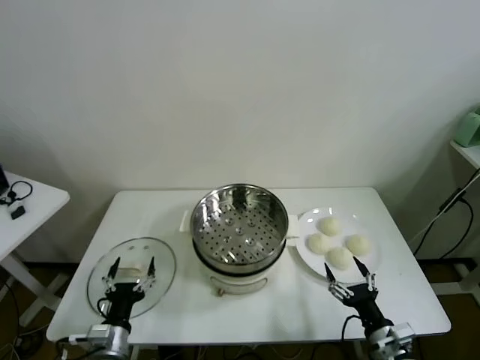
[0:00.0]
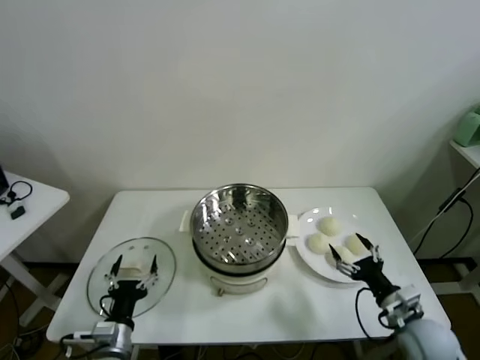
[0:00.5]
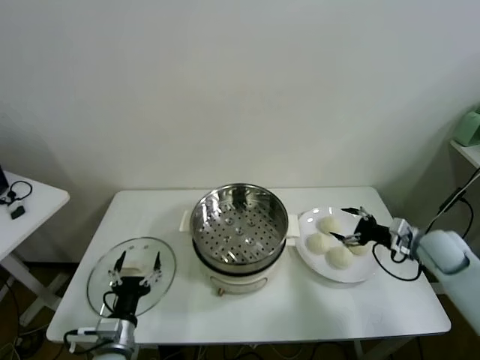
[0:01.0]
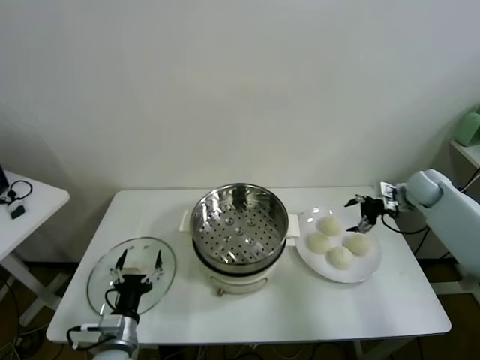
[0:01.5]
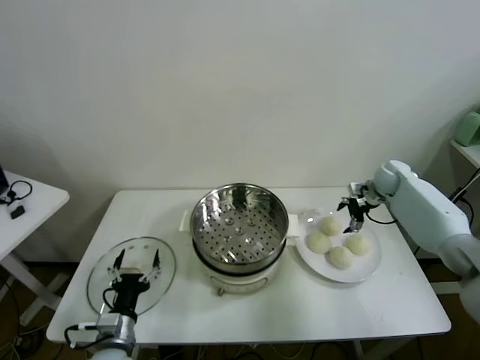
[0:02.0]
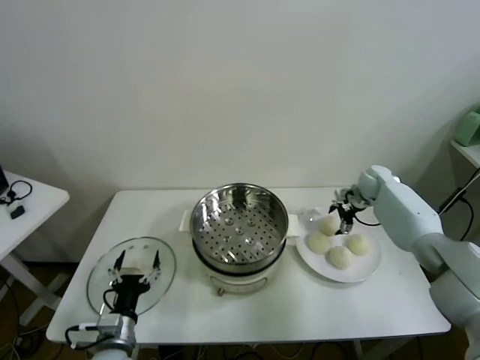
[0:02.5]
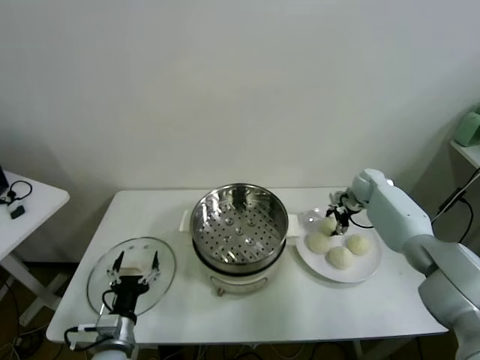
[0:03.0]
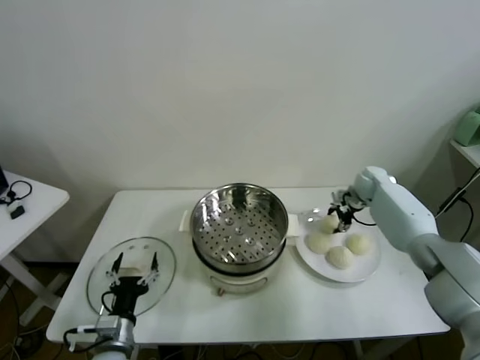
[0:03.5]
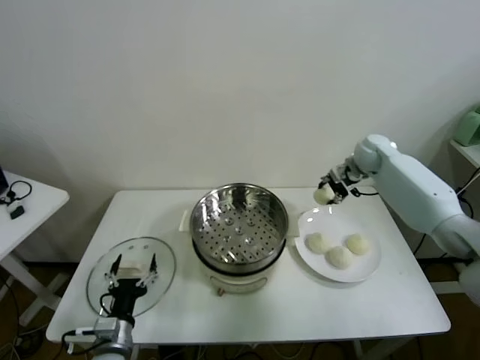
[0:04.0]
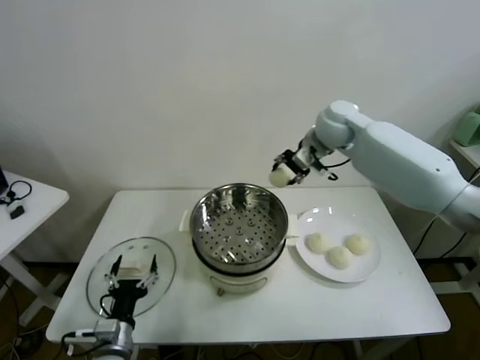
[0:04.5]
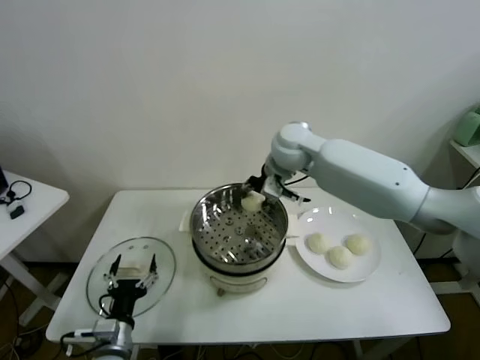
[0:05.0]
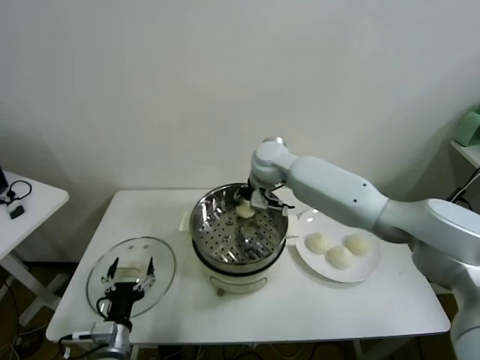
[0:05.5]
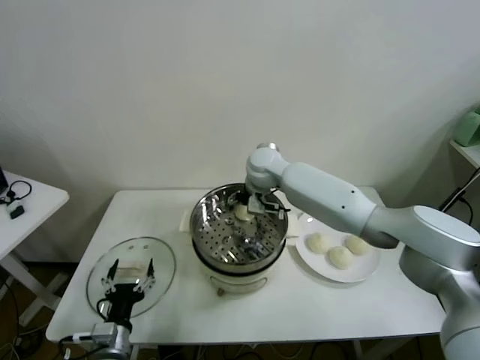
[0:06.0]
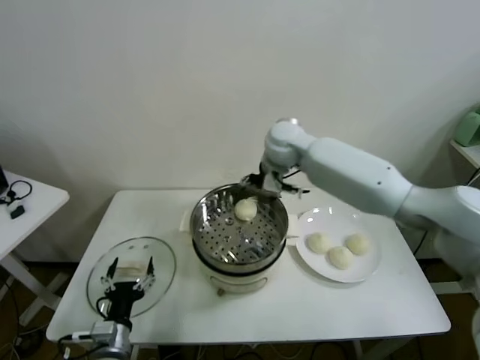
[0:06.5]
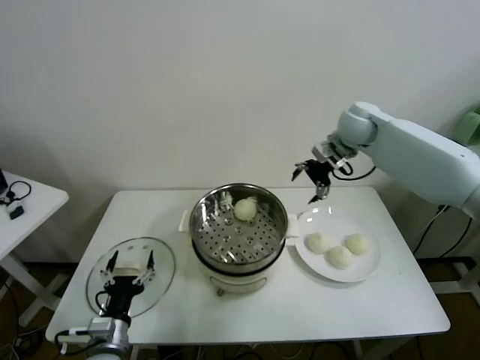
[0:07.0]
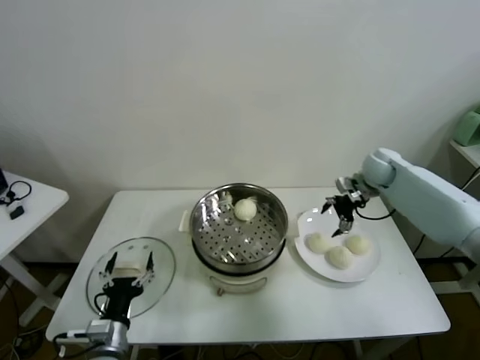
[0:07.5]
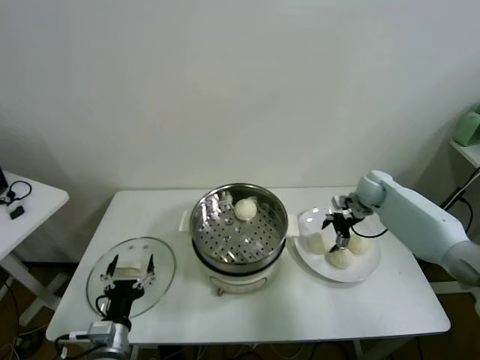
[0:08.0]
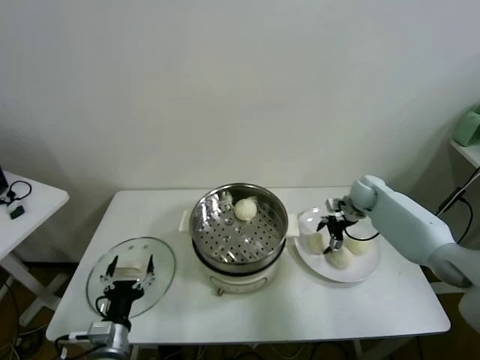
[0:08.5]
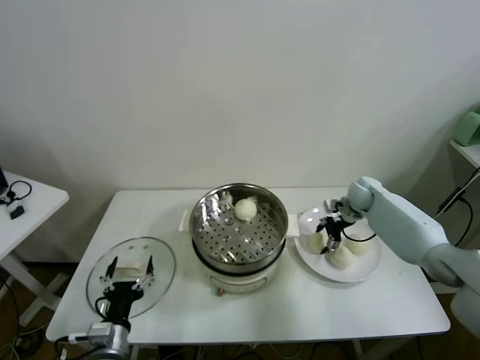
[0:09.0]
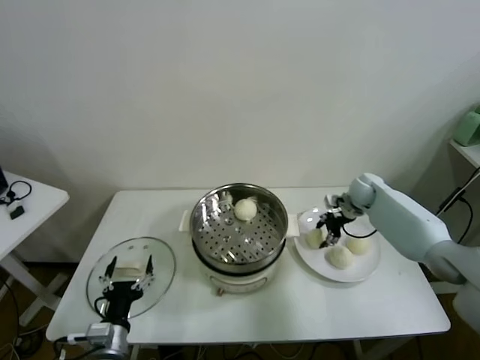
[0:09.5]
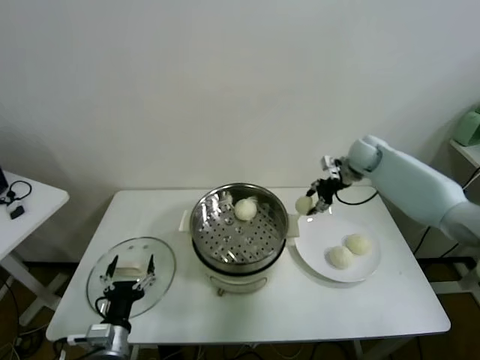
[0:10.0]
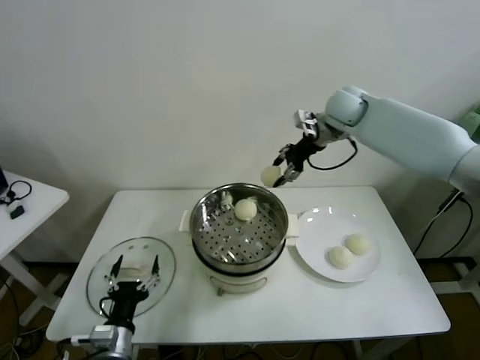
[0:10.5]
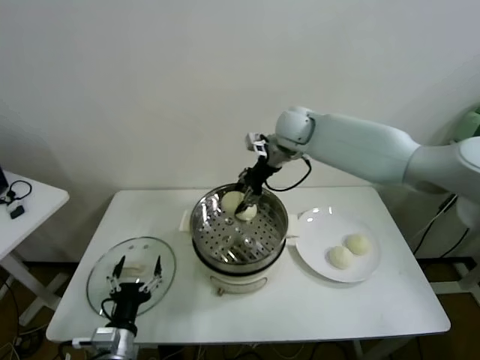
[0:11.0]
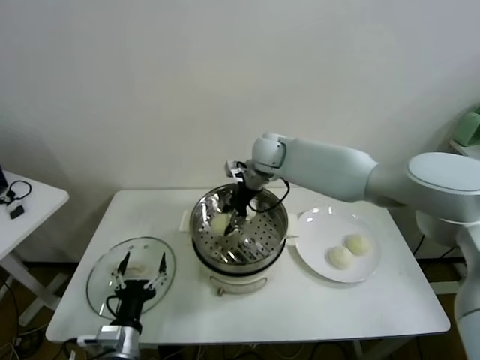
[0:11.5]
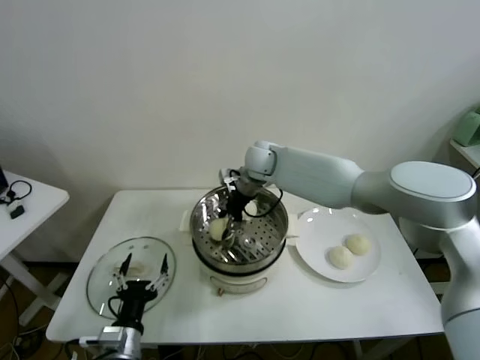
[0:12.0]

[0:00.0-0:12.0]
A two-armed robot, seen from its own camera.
Task of the whole recording: take steamed baozi put them in steamer.
Step, 0:00.0 to 0:02.5: Grasp the baozi in the plate with right gripper.
Step, 0:03.0 to 0:05.5: Place the baozi on the steamer with right gripper.
Step, 0:06.5 to 0:08.5: Grasp the baozi in the plate with right gripper.
0:02.0 to 0:04.0: The right gripper heads upward and to the left, covering roughly 15 cm, and closes up.
0:04.0 to 0:06.0: The right gripper travels to the left by about 30 cm, and opens its fingers.
0:06.0 to 0:08.0: The right gripper travels to the right by roughly 30 cm.
0:08.0 to 0:10.0: The right gripper travels upward by about 10 cm, and closes its fingers.
0:10.0 to 0:12.0: The right gripper travels to the left by about 25 cm.

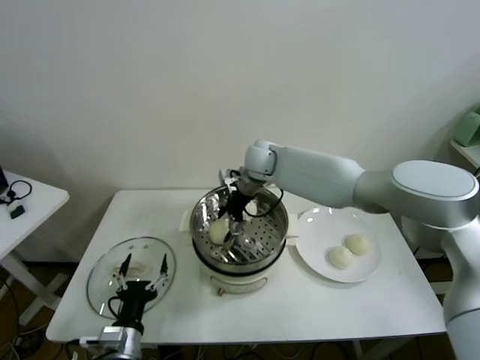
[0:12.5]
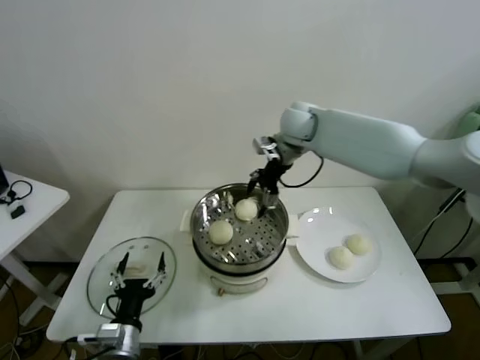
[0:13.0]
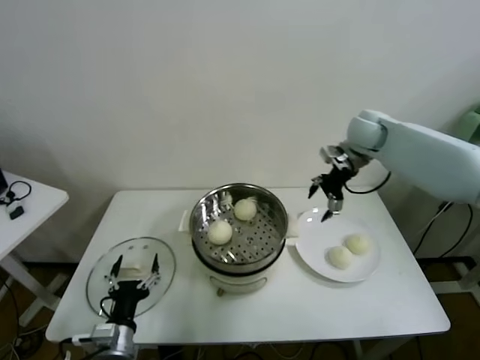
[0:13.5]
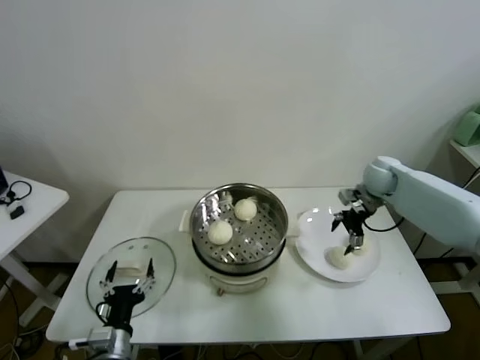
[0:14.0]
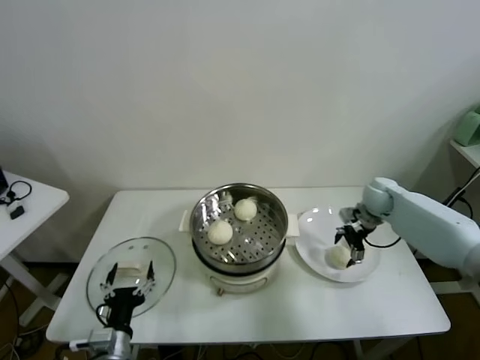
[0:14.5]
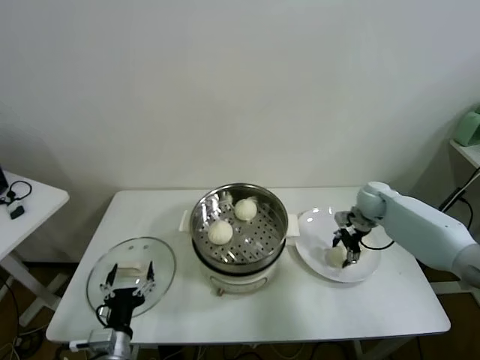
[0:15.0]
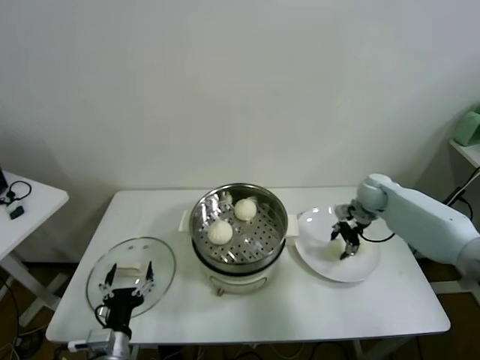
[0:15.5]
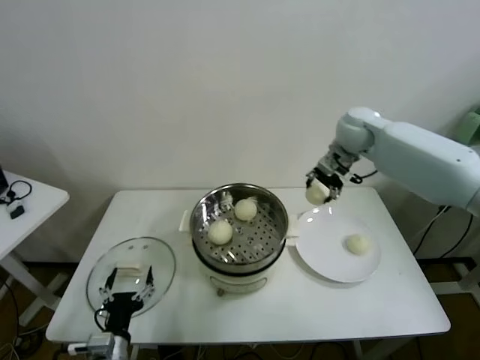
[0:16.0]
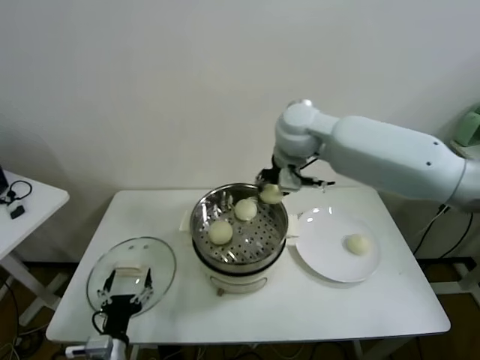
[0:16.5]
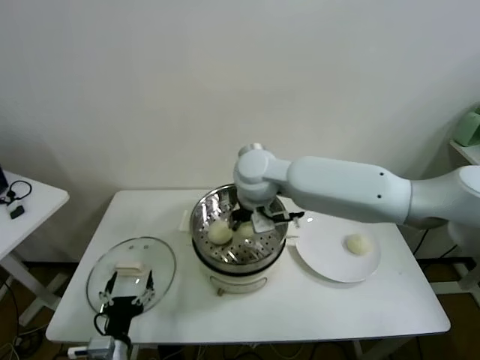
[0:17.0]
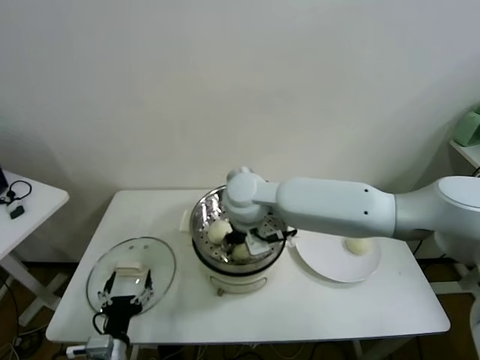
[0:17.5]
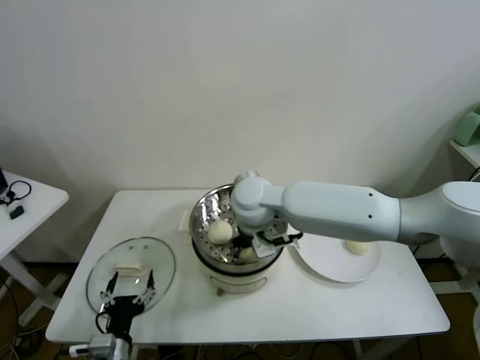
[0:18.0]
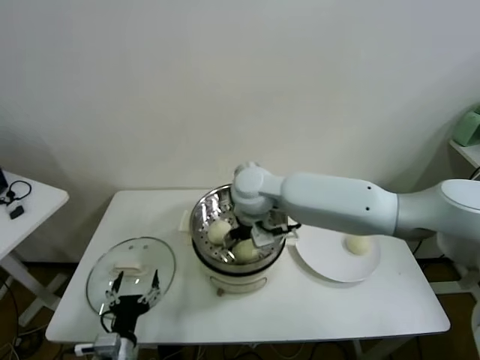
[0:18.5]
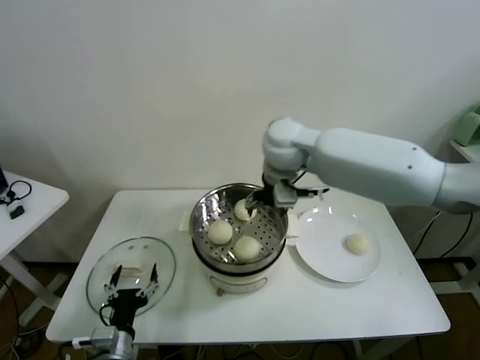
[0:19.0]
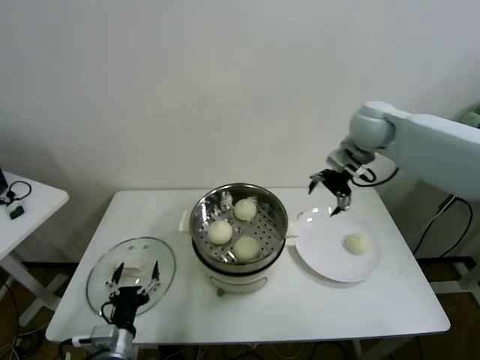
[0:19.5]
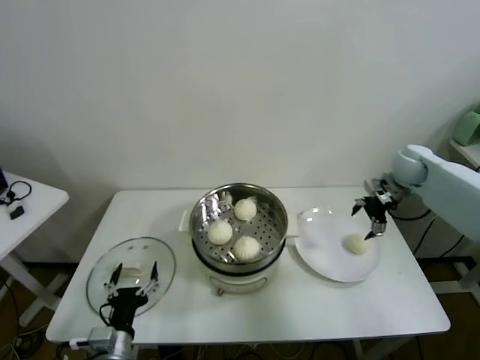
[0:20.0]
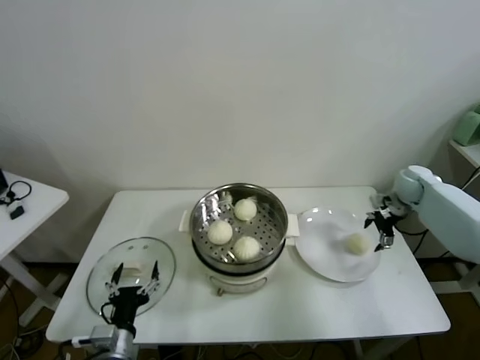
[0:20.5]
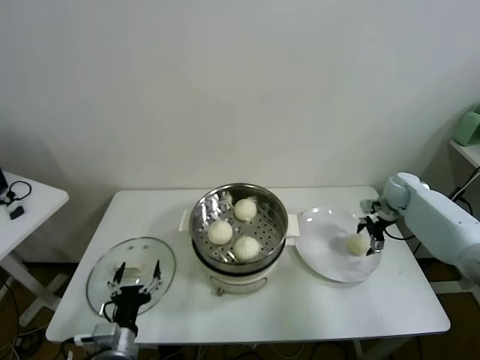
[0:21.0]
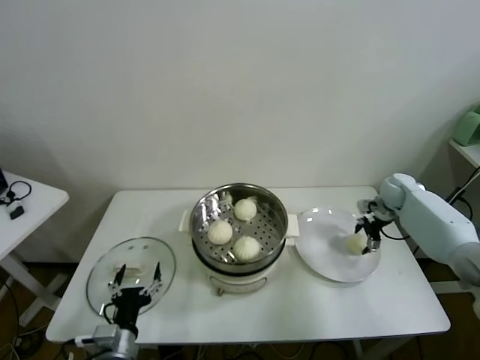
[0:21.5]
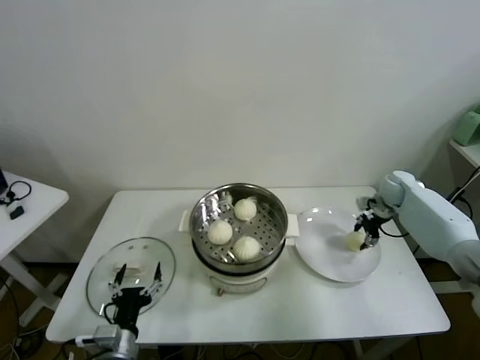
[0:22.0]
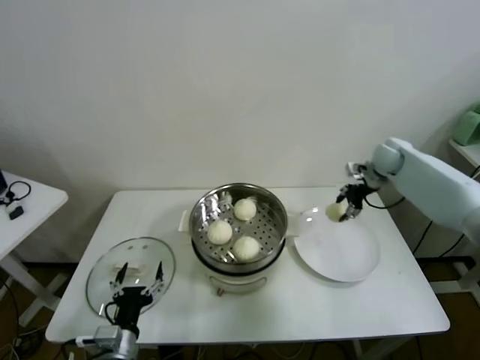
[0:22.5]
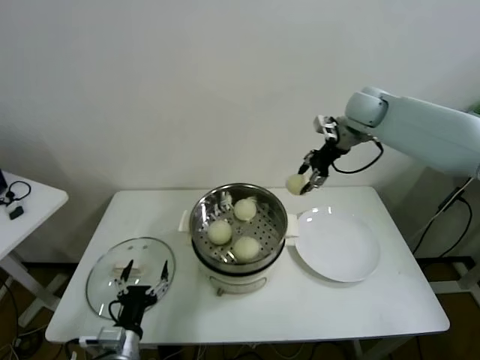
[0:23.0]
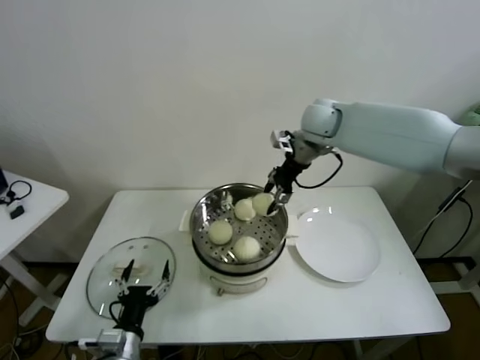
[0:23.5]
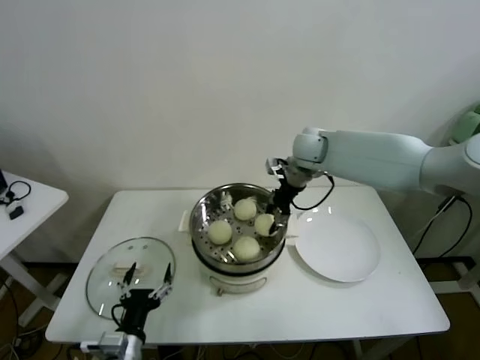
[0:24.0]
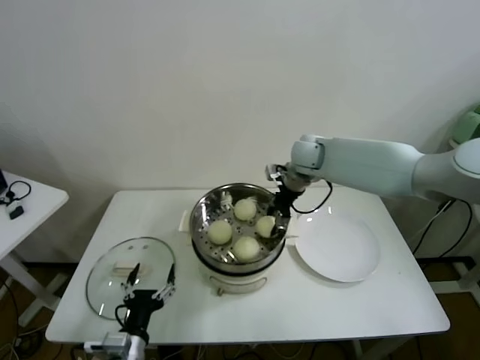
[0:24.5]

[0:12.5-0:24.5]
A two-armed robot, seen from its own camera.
Task of the whole recording: take steamed baozi put them in steamer.
Step, 0:12.5 to 0:14.5: Grasp the baozi in the plate with right gripper.
Step, 0:15.5 to 0:18.0: Place the baozi on the steamer with right gripper.
Step, 0:18.5 to 0:21.5: Grasp the baozi in the plate with right gripper.
0:12.5 to 0:14.5: The right gripper heads to the right, covering some 30 cm.
0:14.5 to 0:16.5: The right gripper goes roughly 35 cm to the left and upward, and closes up.
0:16.5 to 0:18.5: The right gripper shifts some 15 cm downward and to the left, and opens.
0:18.5 to 0:20.5: The right gripper moves to the right, some 40 cm.
0:20.5 to 0:22.5: The right gripper shifts roughly 10 cm to the left and upward, and closes its fingers.
0:22.5 to 0:24.5: The right gripper is displaced to the left by roughly 25 cm.

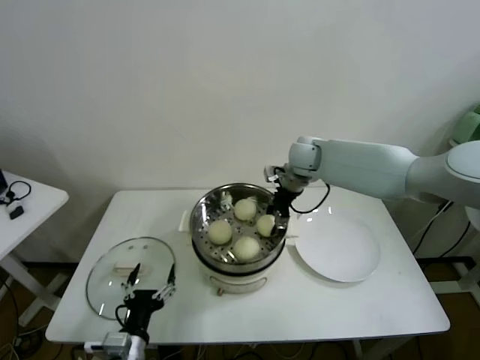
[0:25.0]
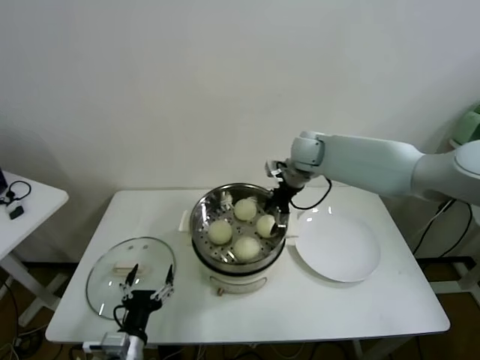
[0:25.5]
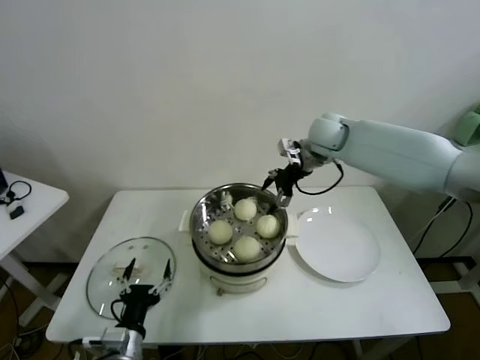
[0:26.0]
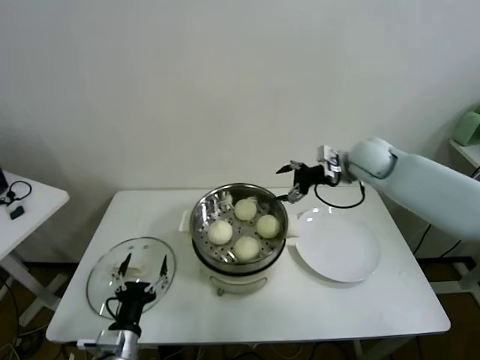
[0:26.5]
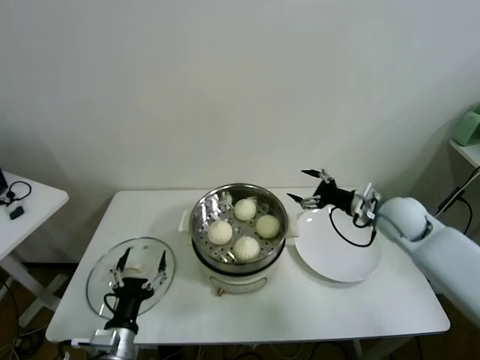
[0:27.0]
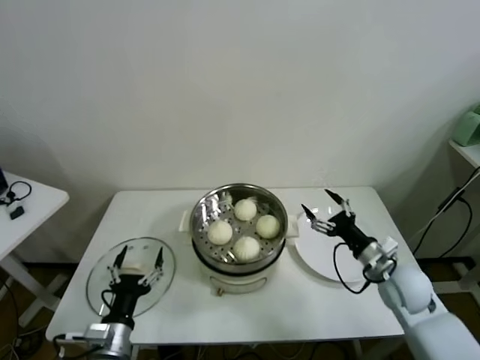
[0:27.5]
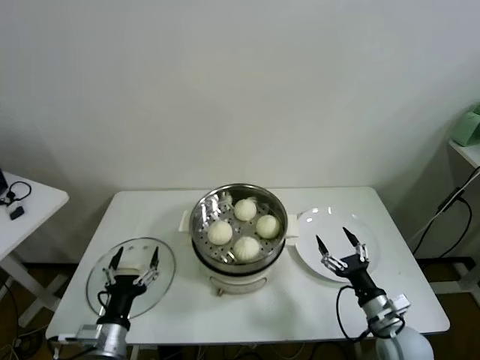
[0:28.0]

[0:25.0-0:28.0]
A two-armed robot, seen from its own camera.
Task of the whole recording: take steamed baozi put them in steamer.
0:25.0 to 0:26.5: The right gripper heads to the right, covering approximately 10 cm, and opens its fingers.
0:26.5 to 0:28.0: The right gripper moves backward and downward, roughly 40 cm.
